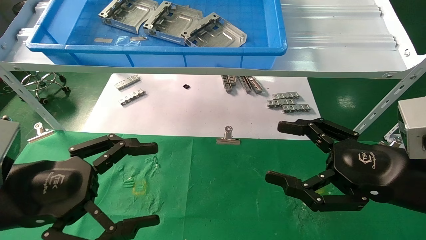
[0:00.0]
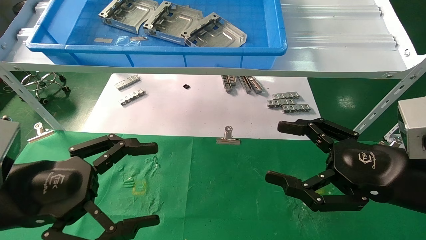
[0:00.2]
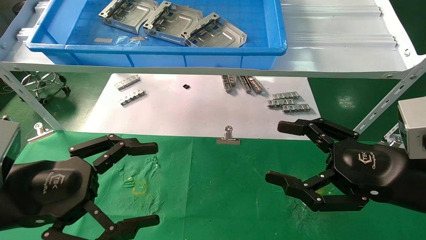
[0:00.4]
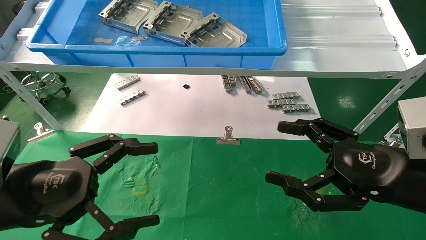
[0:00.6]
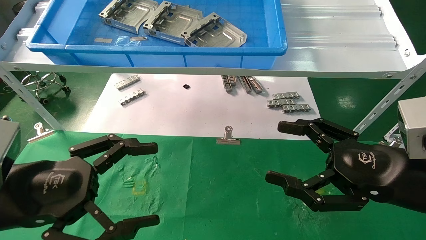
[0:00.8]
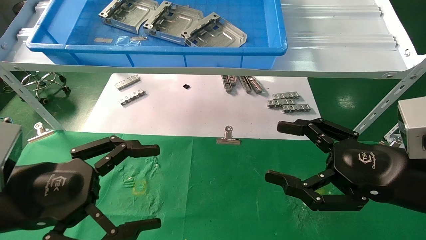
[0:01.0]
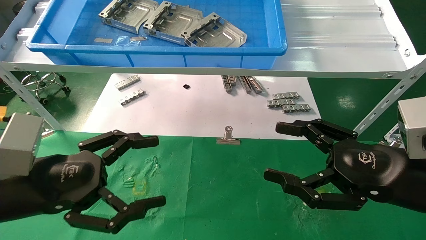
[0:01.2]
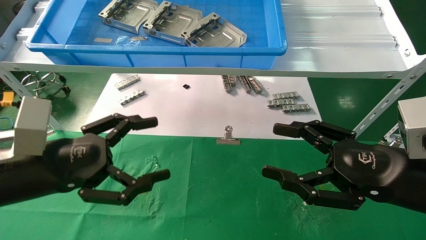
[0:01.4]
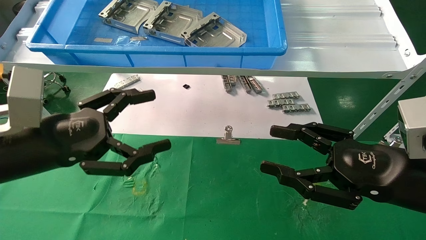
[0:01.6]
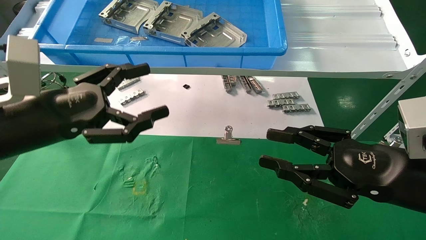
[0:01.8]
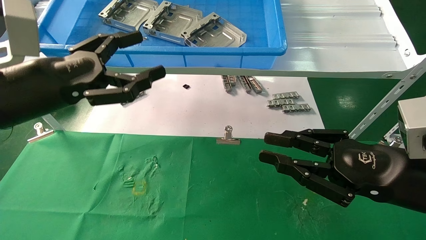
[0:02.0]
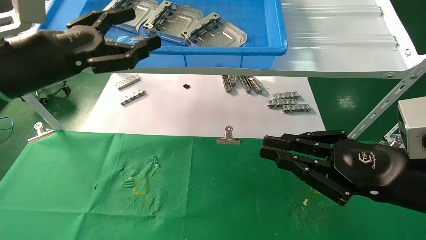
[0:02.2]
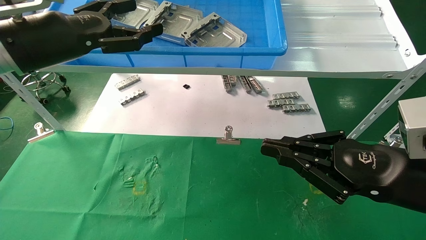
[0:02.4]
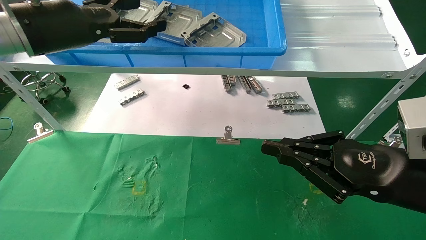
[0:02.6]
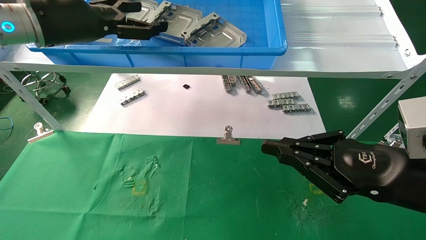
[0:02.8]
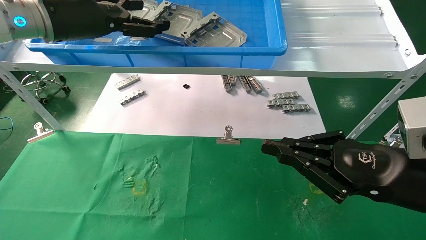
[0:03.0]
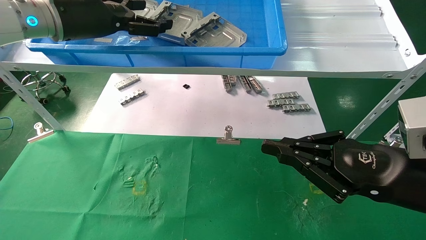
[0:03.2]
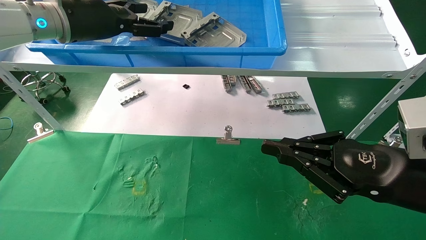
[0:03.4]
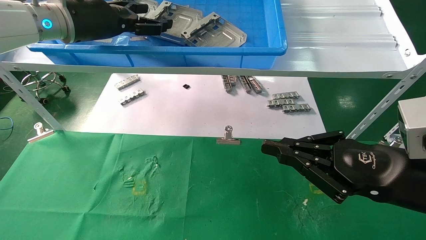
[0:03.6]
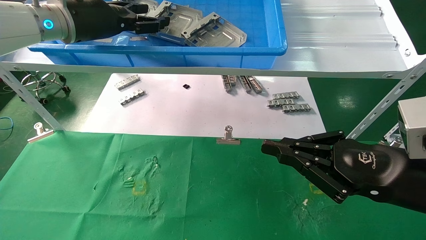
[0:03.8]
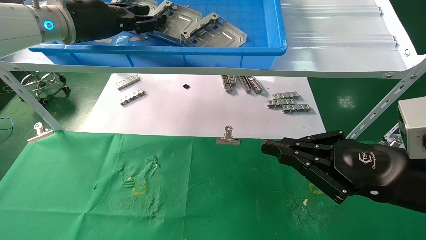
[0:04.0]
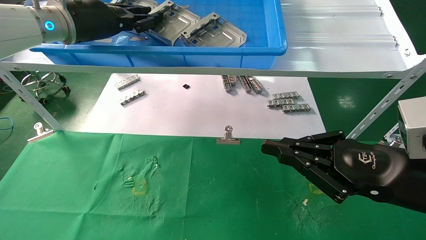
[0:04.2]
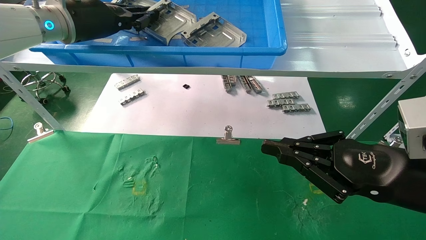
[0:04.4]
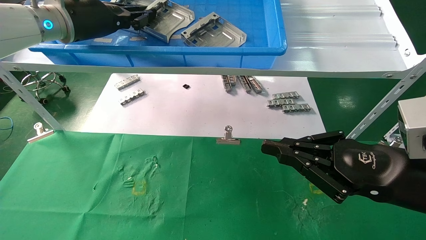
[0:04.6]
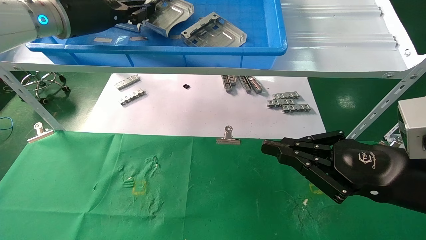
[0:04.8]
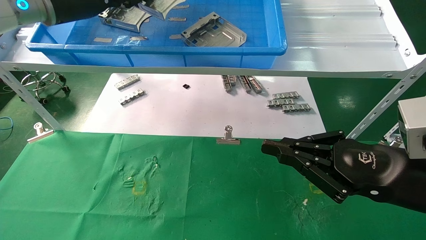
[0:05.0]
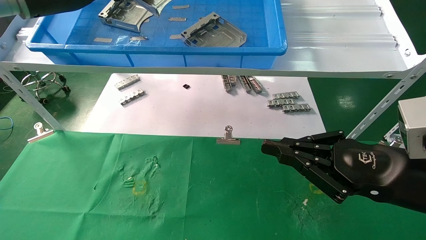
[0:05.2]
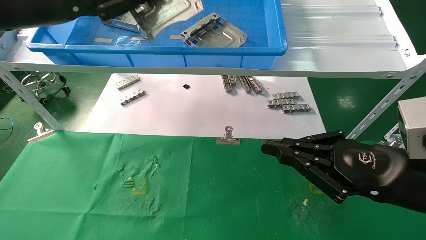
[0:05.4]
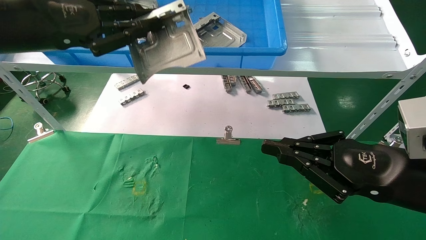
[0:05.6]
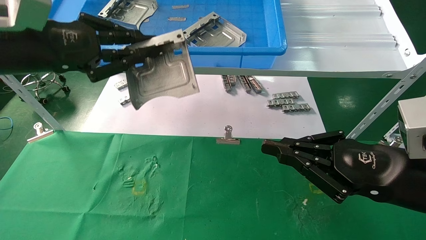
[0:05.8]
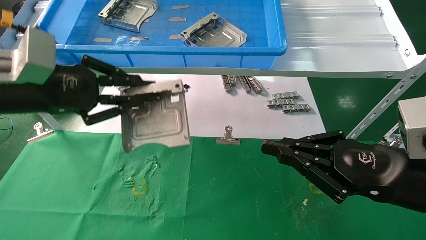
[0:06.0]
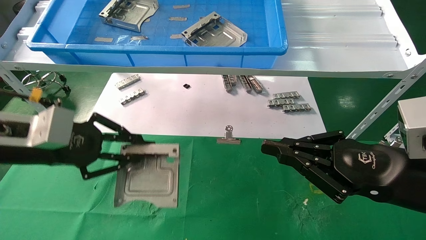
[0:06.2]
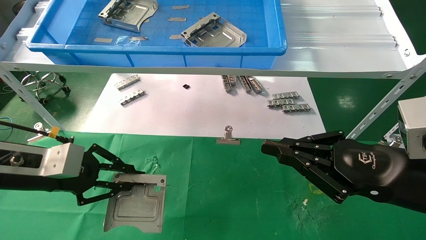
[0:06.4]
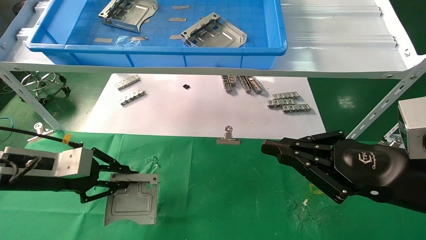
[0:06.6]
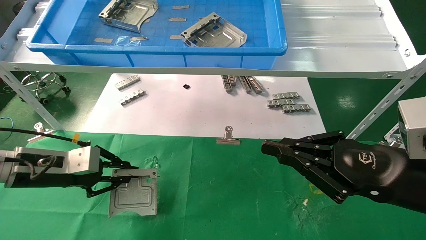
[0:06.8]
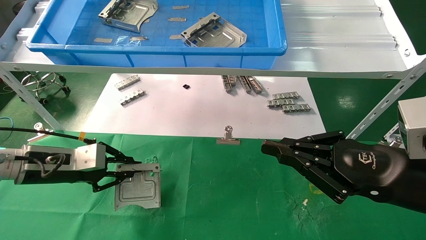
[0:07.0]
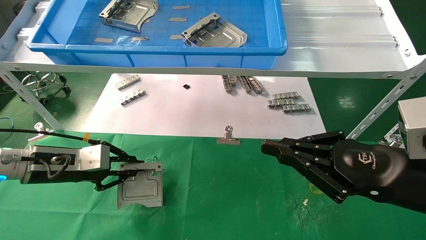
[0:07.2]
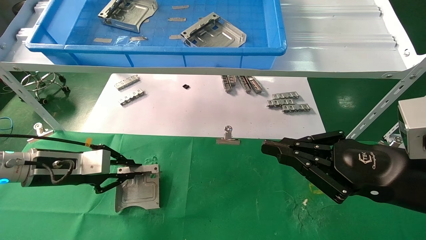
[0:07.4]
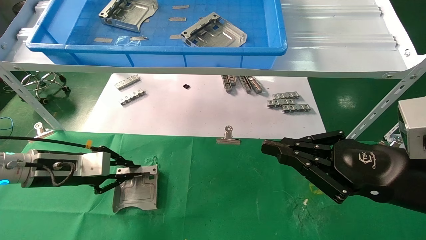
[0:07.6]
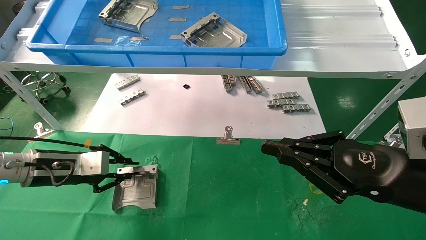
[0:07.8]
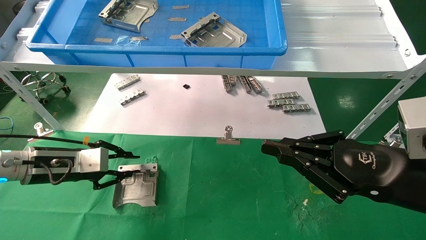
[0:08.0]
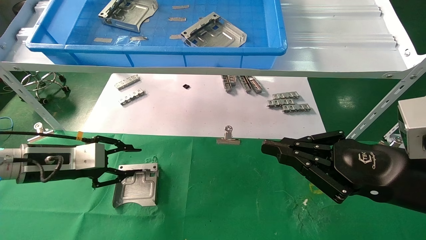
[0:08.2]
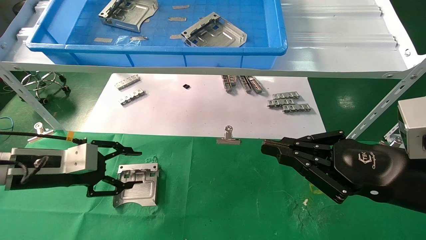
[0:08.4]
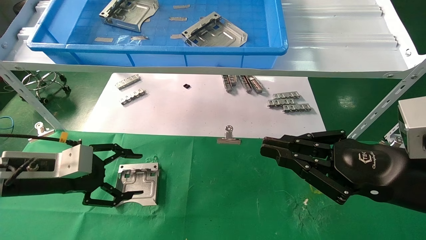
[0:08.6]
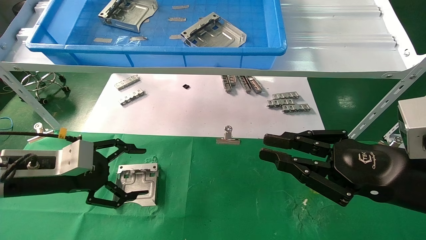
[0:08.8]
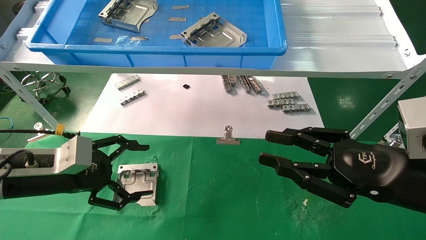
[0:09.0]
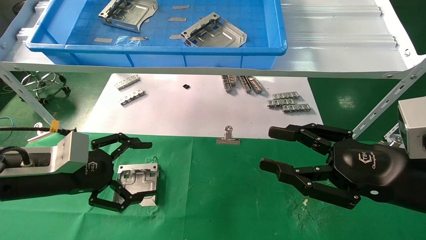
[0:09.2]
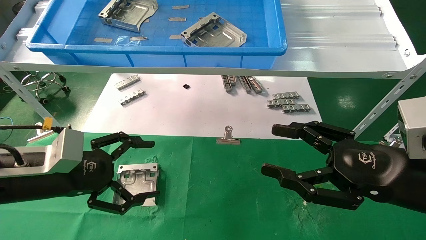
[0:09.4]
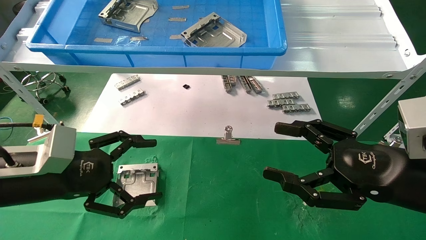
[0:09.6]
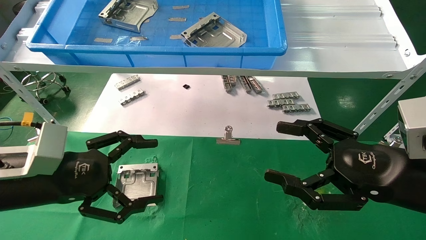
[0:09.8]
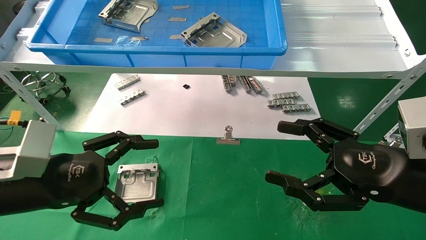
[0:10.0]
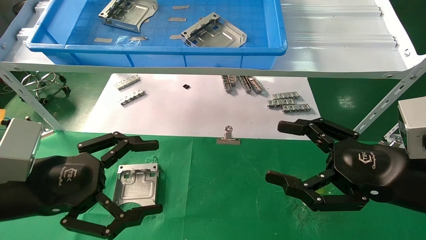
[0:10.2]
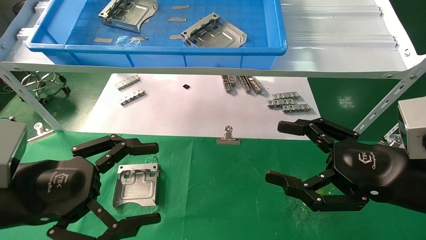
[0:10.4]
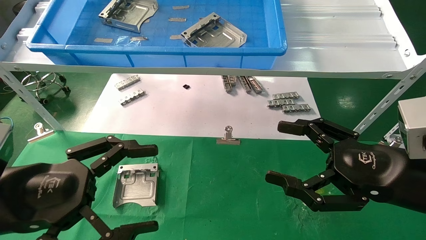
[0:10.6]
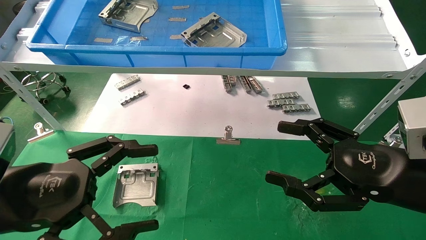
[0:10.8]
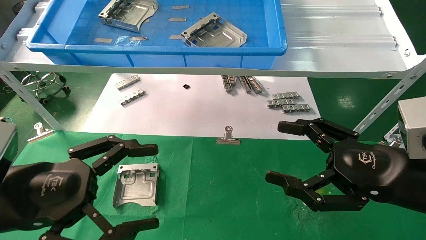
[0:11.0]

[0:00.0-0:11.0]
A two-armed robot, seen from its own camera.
Task of the whole recording: use the mechanical arm to pick up the parts and place them on the table.
Step, 0:01.4 to 0:04.4: Pick up the hard drive bracket from the feeding area.
Step, 0:04.6 to 0:07.6: Place the hard drive bracket into the box.
0:00.0 to 0:01.6: The left gripper ends up about 5 cm from where it was.
0:01.6 to 0:03.2: The right gripper closes, while the left gripper goes about 25 cm upward and forward.
0:03.2 to 0:04.8: The left gripper closes.
0:04.8 to 0:06.2: The left gripper moves downward and backward, about 20 cm.
0:06.2 to 0:07.8: The left gripper travels downward and forward by some 15 cm.
0:07.8 to 0:09.4: The right gripper opens up, while the left gripper heads backward, covering about 10 cm, and opens its fingers.
0:09.4 to 0:11.0: The right gripper opens, while the left gripper travels backward by some 10 cm.
